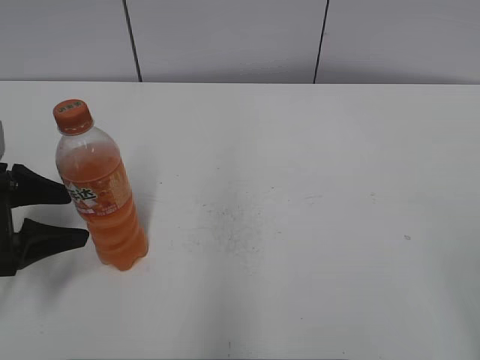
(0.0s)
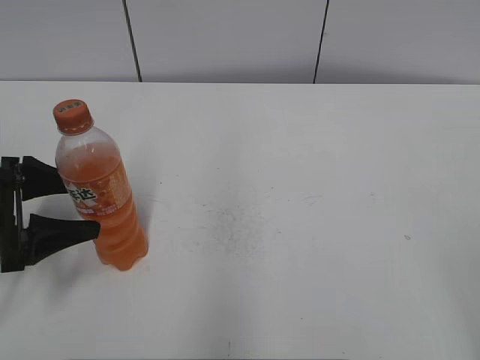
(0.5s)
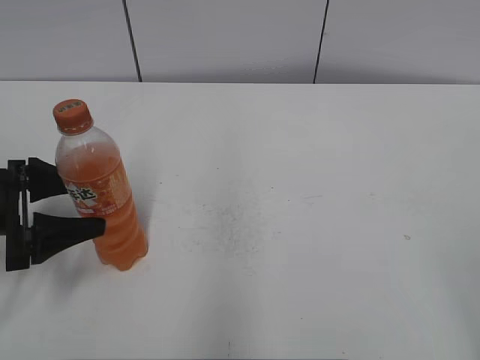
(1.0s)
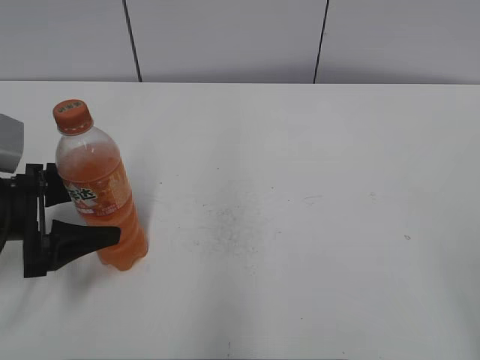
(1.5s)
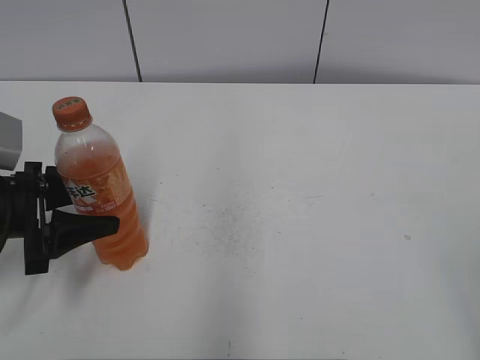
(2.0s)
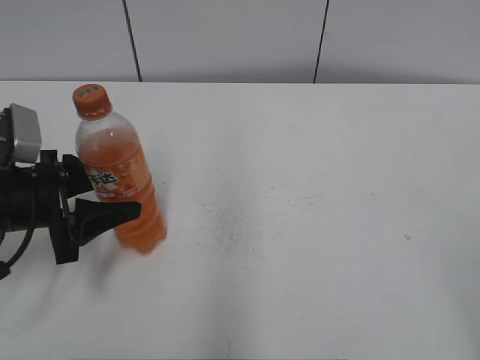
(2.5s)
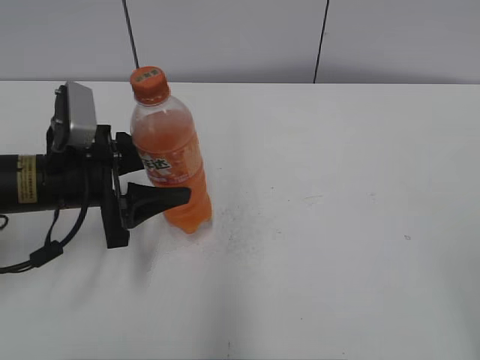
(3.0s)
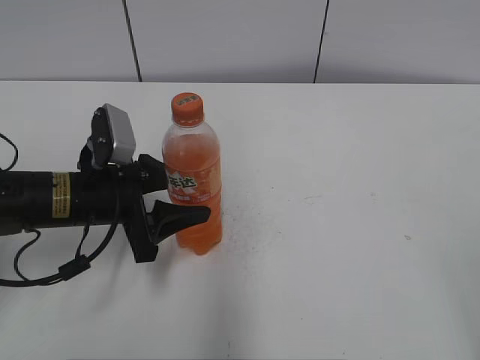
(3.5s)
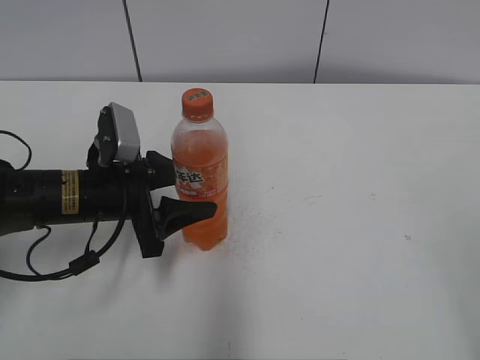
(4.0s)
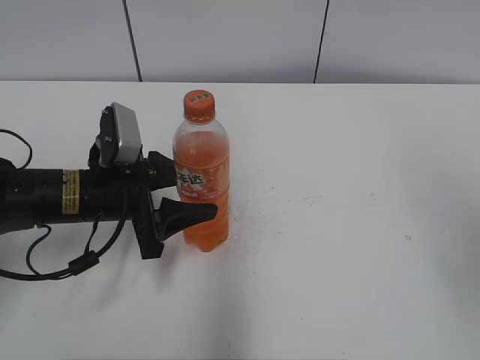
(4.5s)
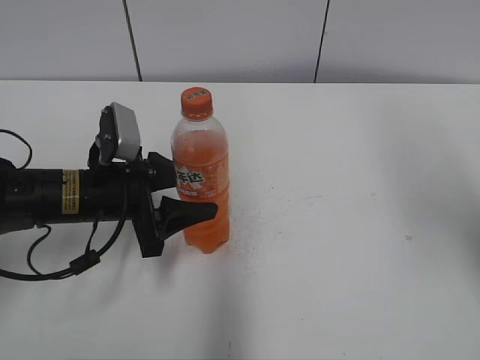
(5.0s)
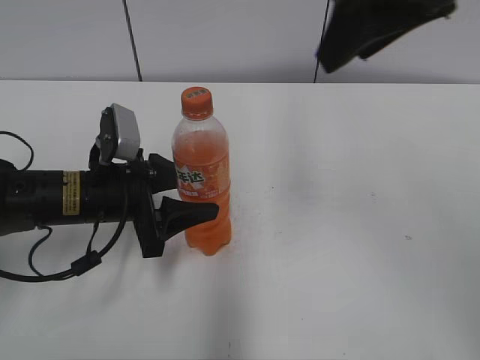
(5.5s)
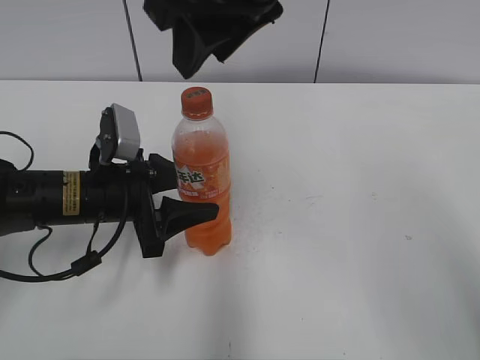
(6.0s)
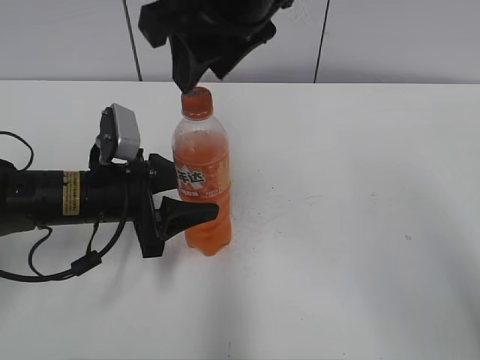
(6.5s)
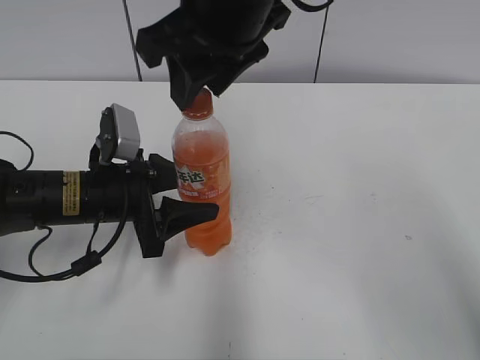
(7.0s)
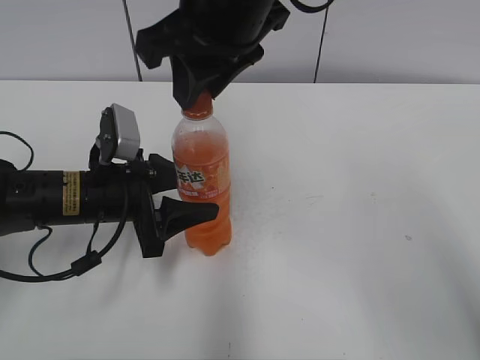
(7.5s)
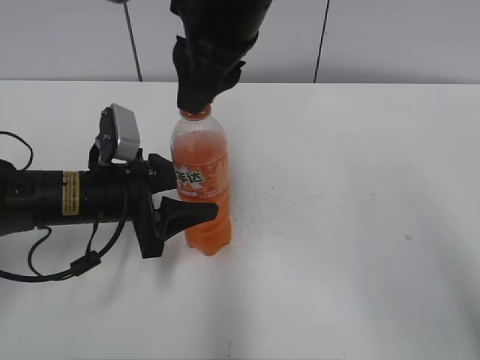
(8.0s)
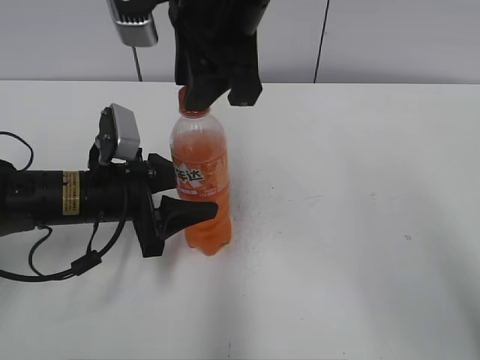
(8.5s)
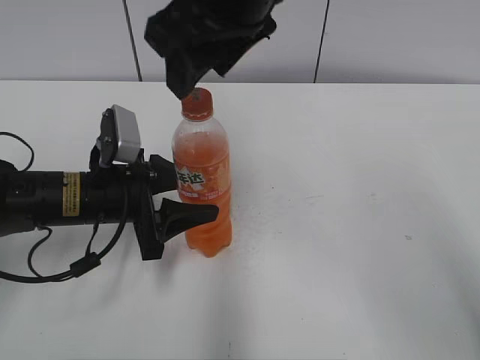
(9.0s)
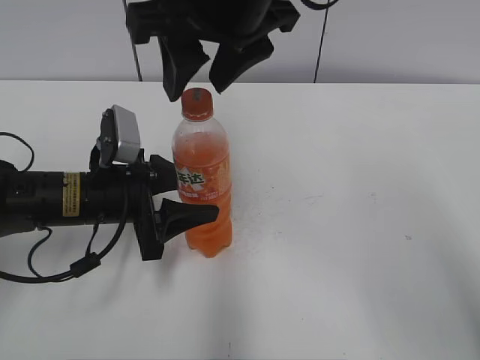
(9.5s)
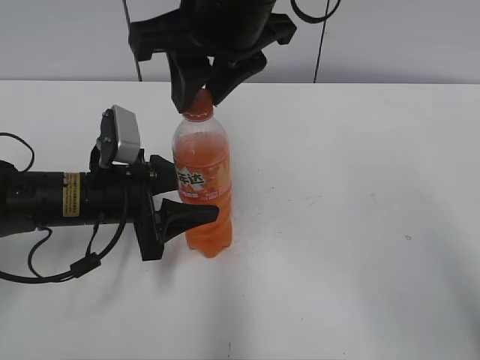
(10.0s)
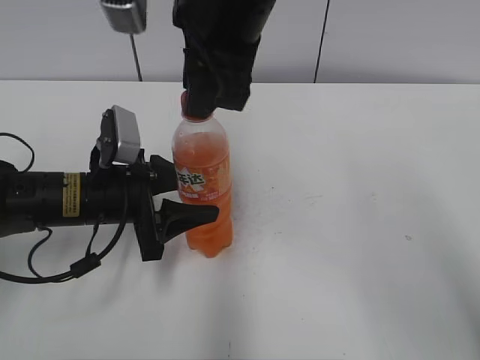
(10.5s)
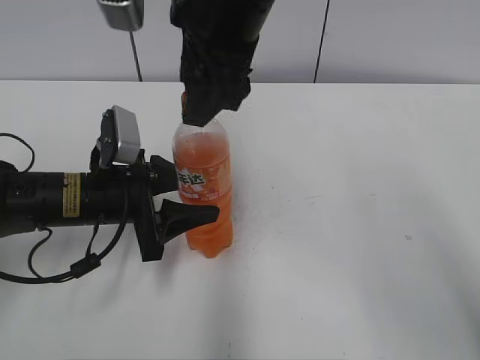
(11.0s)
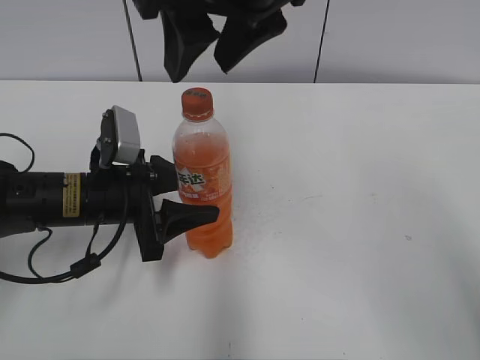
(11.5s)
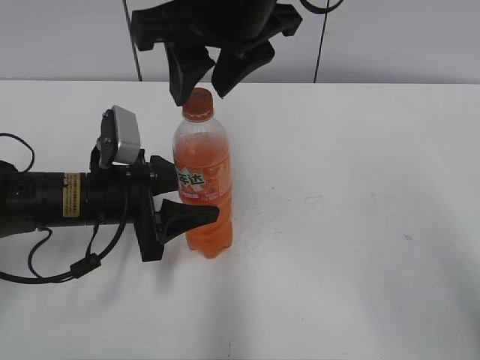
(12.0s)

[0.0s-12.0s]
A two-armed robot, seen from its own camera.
Step, 2.0s to 5.0s: Move the Mirinda from left to right.
0.0s to 2.0s: The left gripper closes up.
2.0s to 4.0s: The left gripper is displaced to the right by about 10 cm.
4.0s to 6.0s: The right gripper shifts about 40 cm to the left and forward, and closes up.
8.0s to 10.0s: The right gripper opens, then closes again.

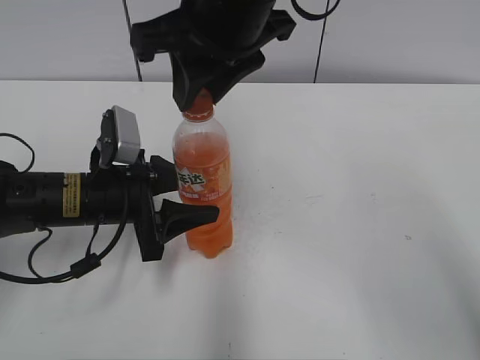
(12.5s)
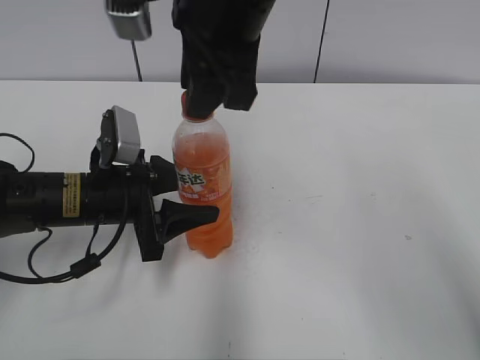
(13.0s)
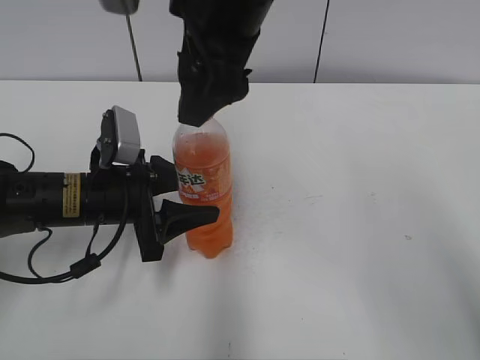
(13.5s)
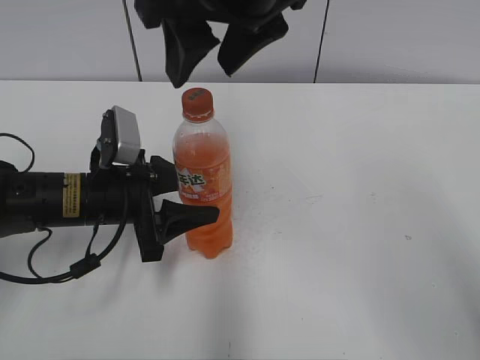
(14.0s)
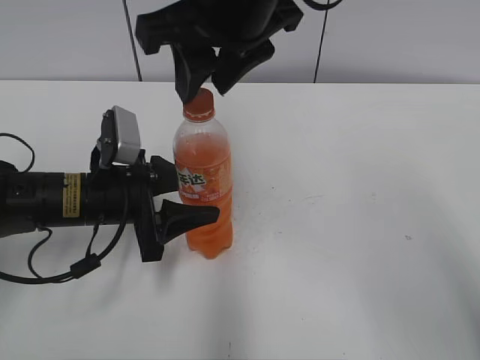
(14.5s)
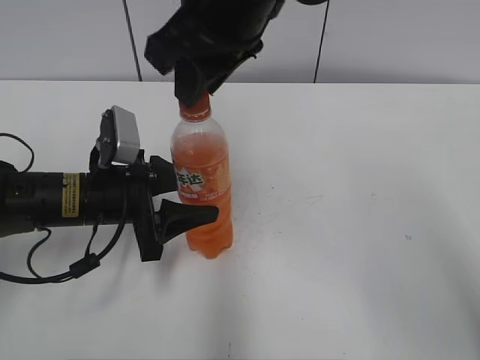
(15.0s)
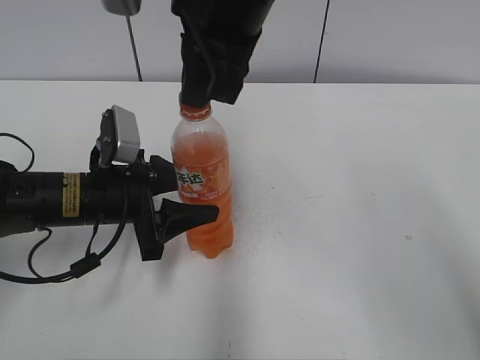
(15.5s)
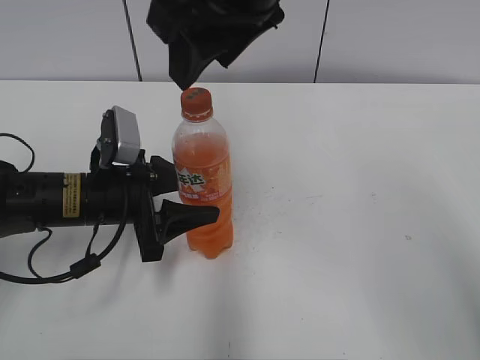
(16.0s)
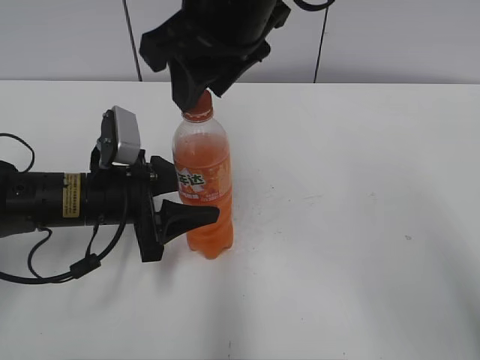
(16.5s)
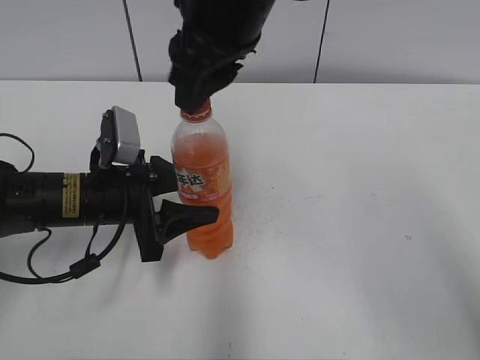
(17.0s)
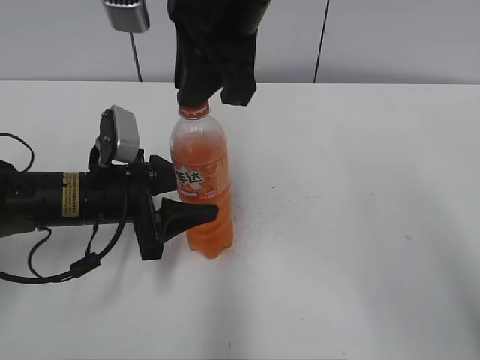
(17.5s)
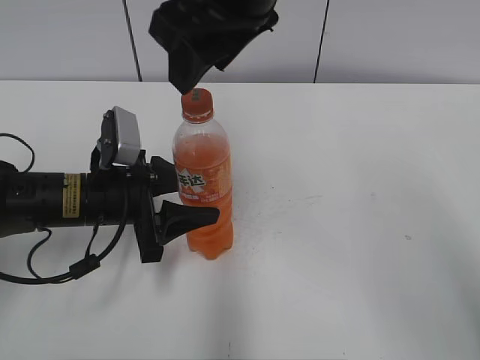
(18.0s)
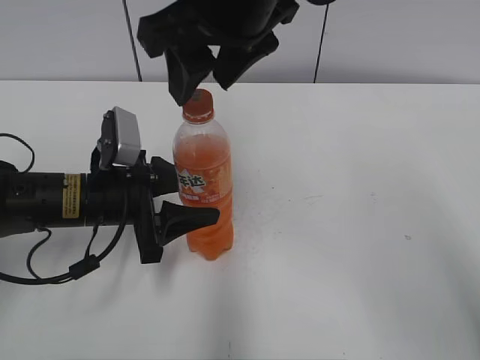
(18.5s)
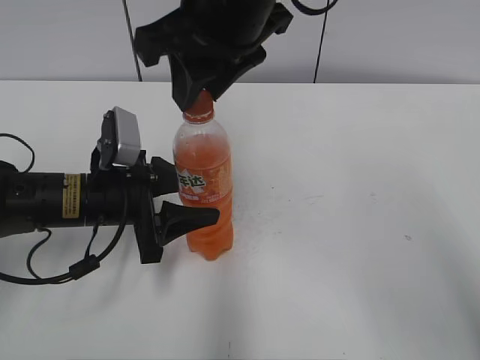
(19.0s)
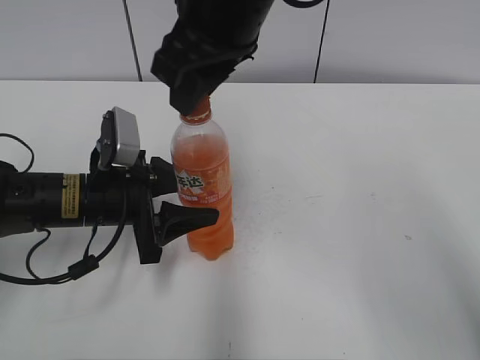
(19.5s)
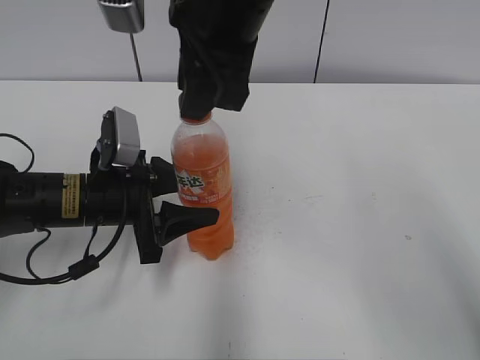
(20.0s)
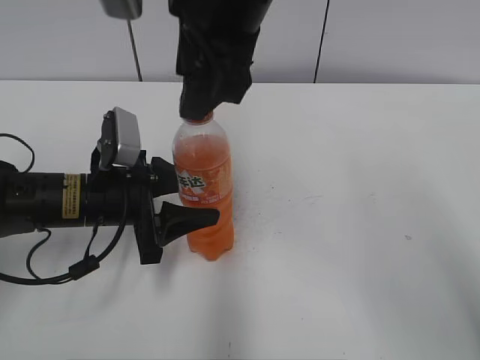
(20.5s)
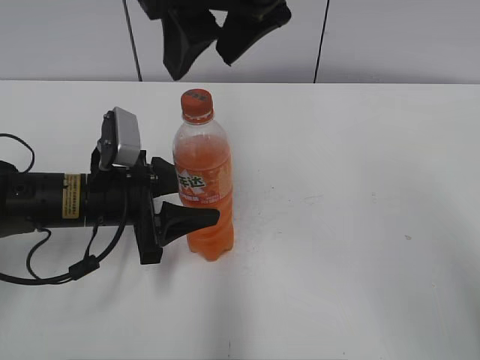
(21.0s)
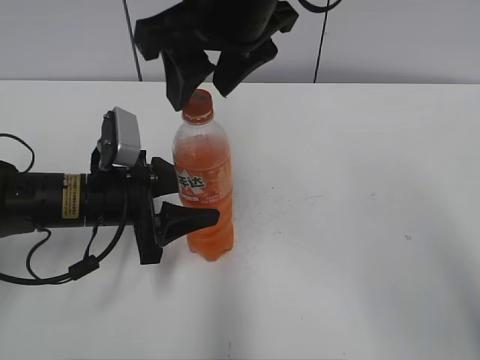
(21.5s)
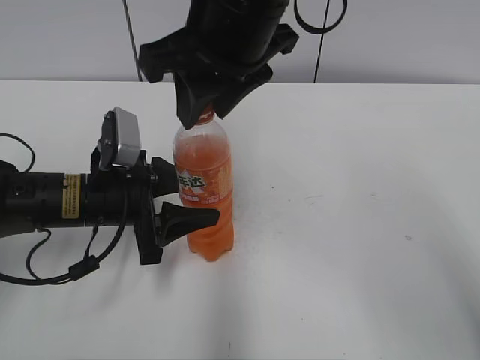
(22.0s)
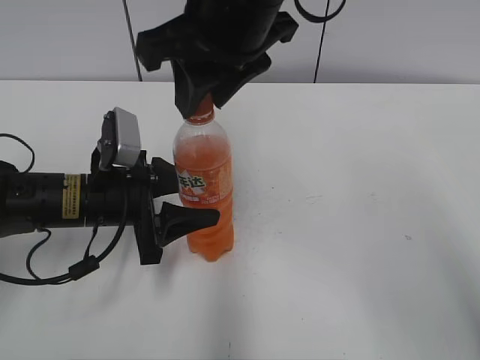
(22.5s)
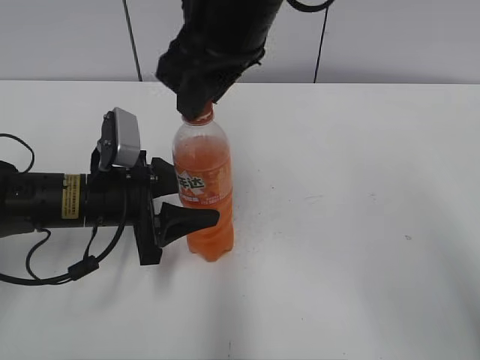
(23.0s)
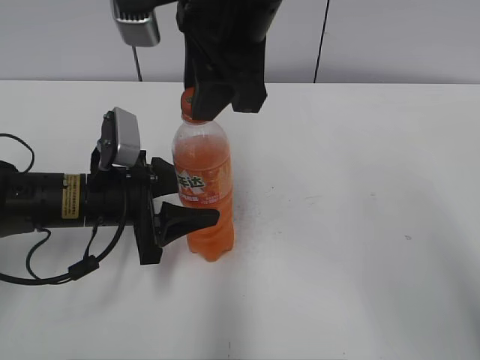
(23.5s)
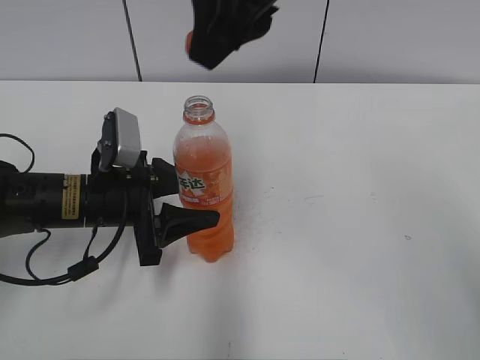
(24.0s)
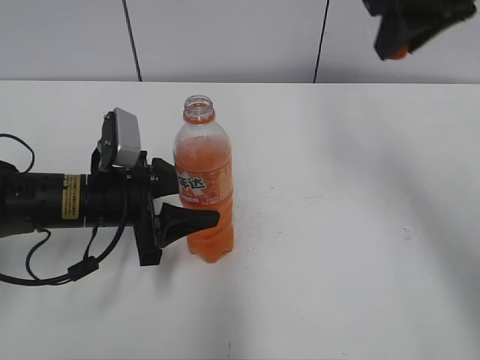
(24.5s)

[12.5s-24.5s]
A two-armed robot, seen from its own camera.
12.5s to 14.5s: The right gripper opens, then closes again.
14.5s to 16.5s: The right gripper closes, then opens again.
16.5s to 18.5s: The right gripper closes, then reopens.
18.5s to 20.5s: The right gripper closes, then opens again.
20.5s to 22.5s: The right gripper closes.
22.5s to 24.5s: The right gripper shifts about 20 cm to the right.

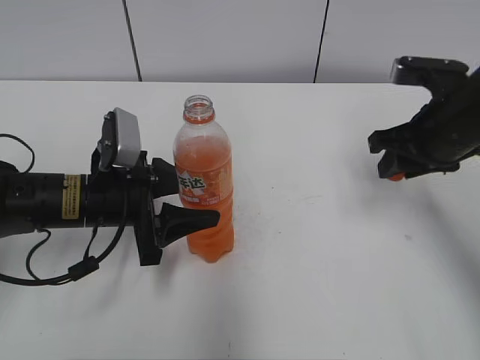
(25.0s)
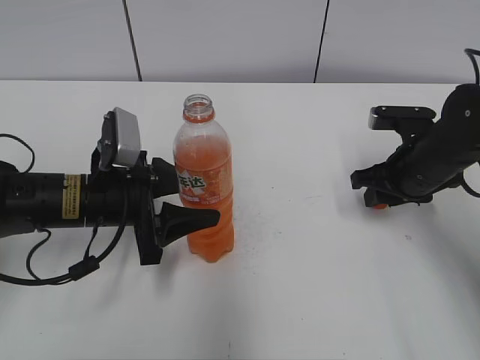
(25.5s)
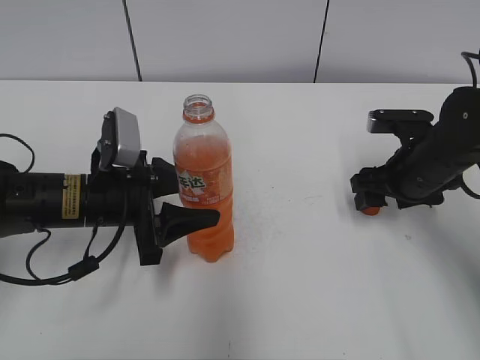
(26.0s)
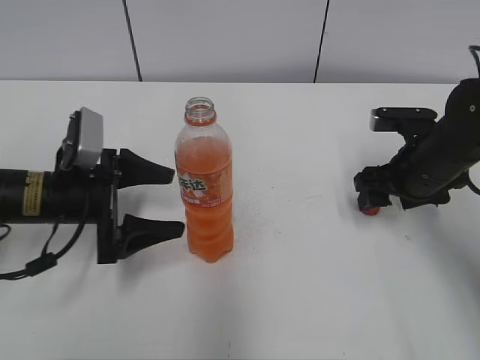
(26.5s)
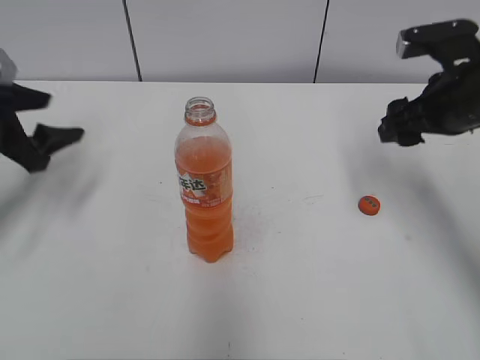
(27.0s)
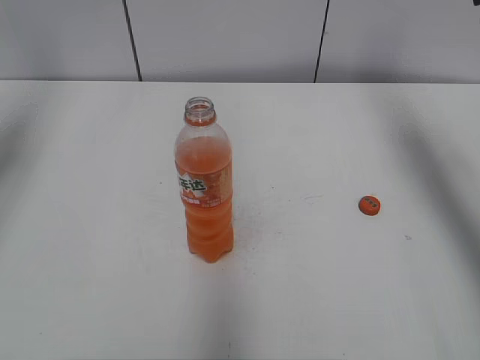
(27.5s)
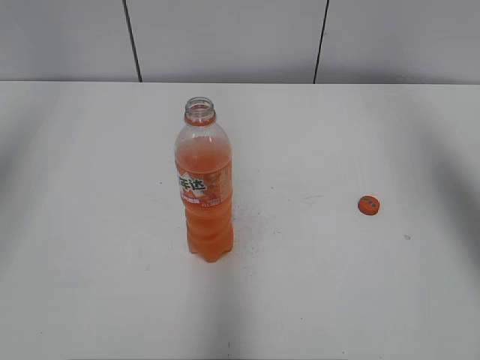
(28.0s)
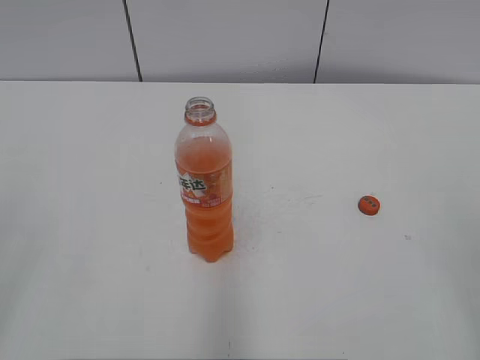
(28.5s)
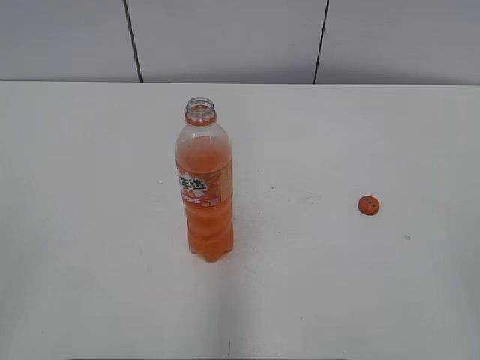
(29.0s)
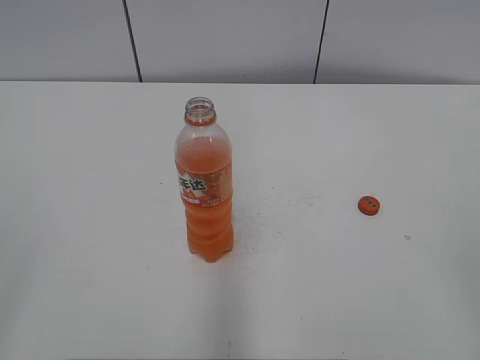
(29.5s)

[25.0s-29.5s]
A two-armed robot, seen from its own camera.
25.0s to 27.0s: The left gripper moves to the left and upward, approximately 15 cm, and opens its fingers; the right gripper opens.
27.0s to 29.5s: Both grippers travel together backward, approximately 35 cm.
